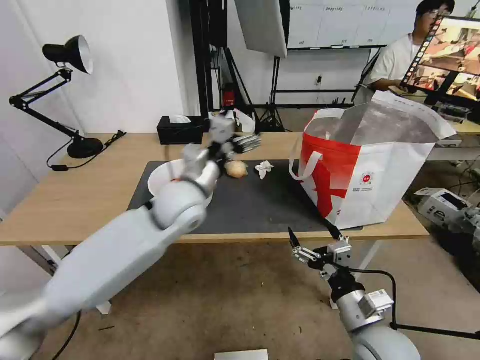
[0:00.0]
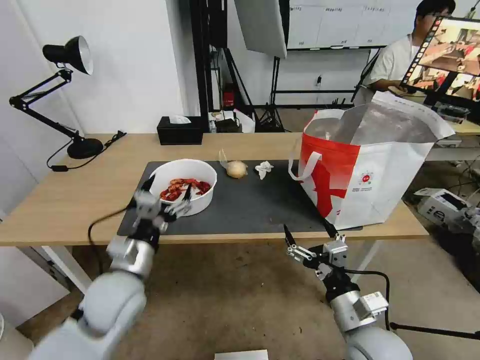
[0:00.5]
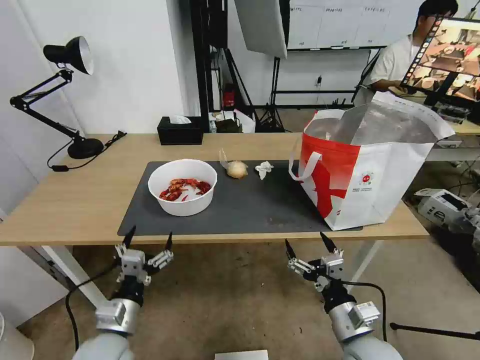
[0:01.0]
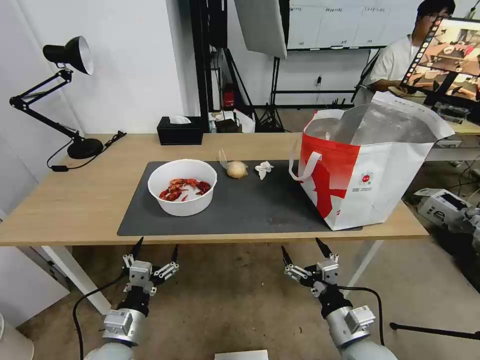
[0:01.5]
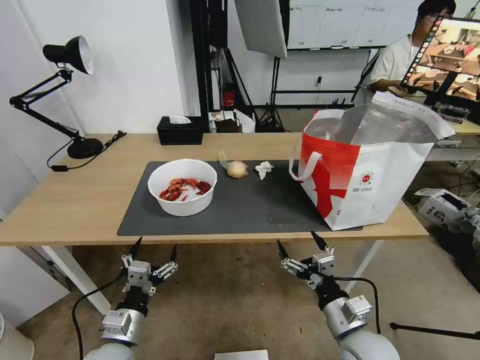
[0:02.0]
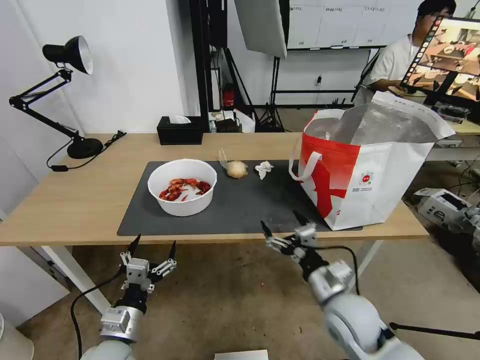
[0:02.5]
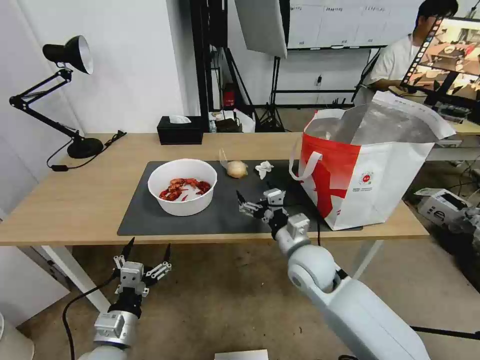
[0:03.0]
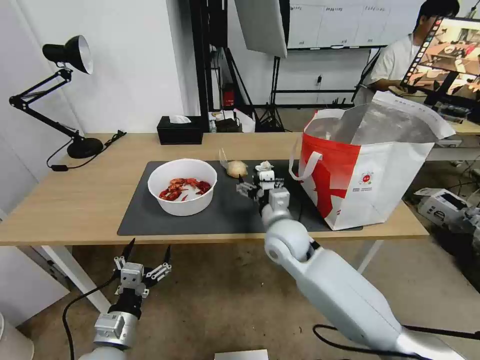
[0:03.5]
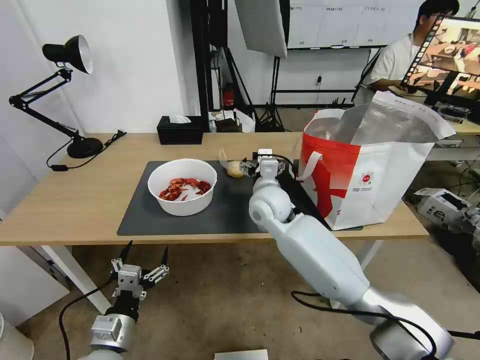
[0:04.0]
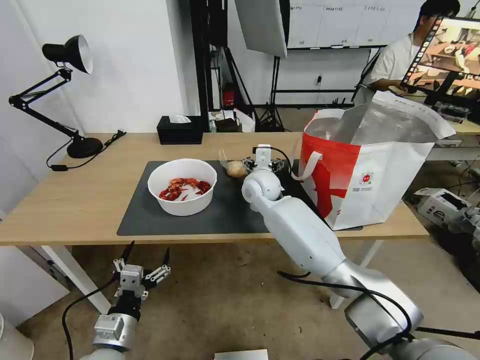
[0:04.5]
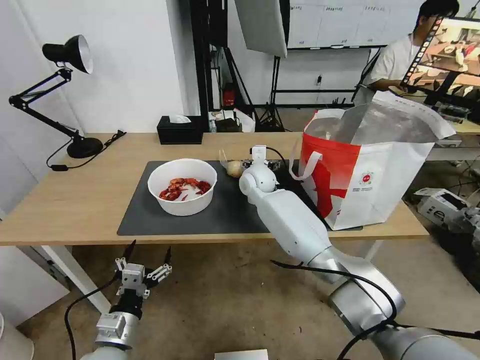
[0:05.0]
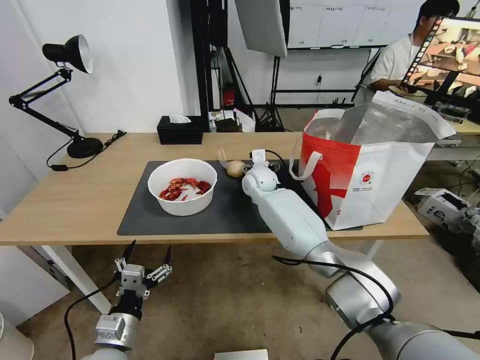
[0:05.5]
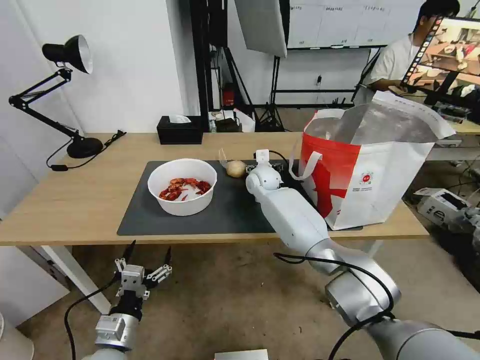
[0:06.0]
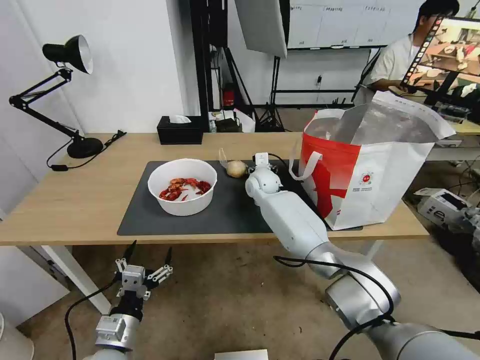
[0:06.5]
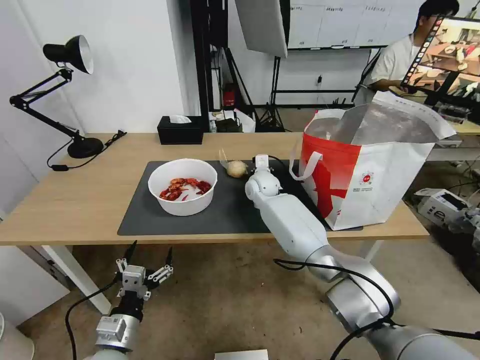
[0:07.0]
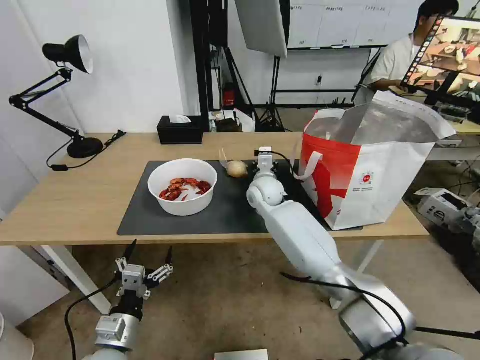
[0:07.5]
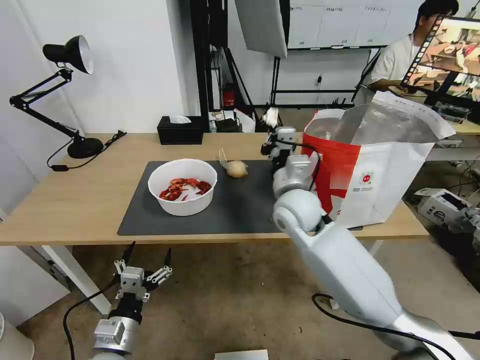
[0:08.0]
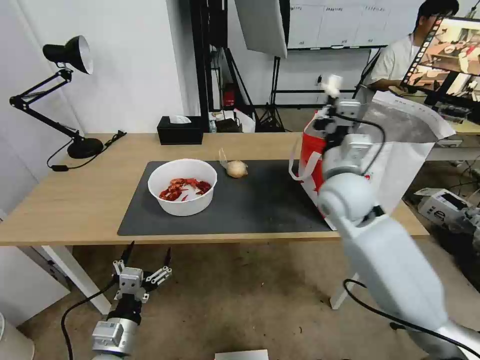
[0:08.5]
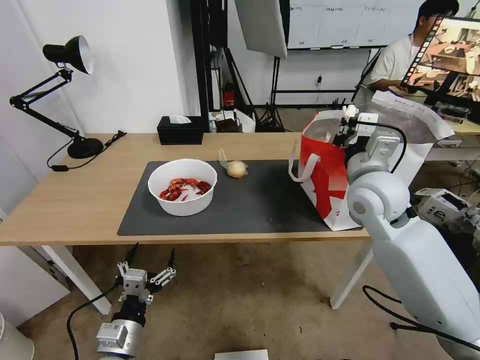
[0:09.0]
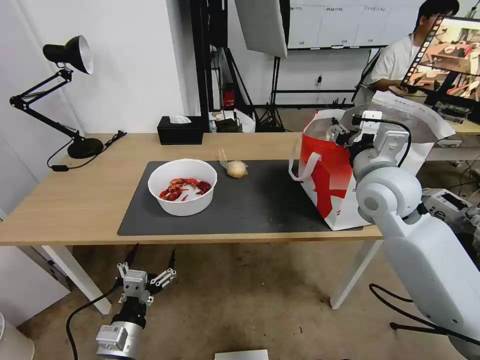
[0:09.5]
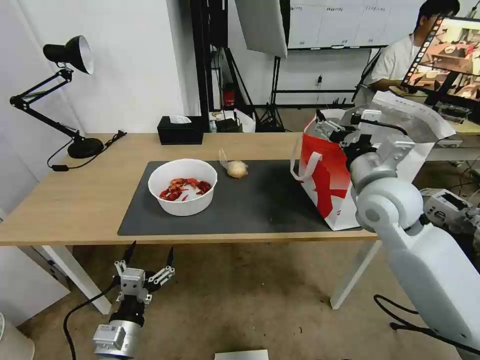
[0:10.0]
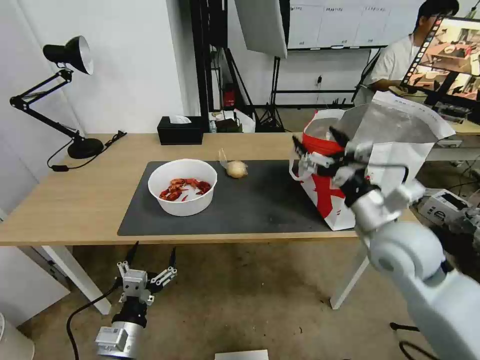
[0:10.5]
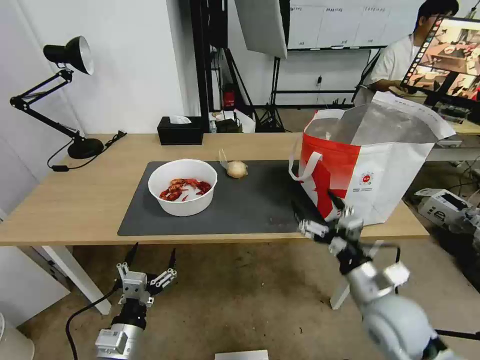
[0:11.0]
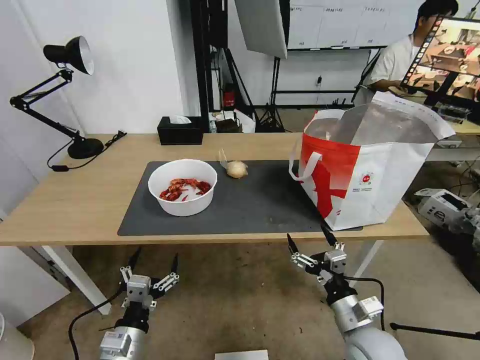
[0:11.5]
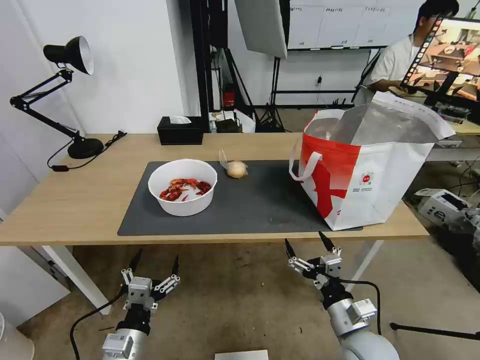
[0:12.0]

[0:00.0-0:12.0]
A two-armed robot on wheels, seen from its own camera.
Task of the whole recording: Pick up the trash from the table and place it into the takeout bag.
0:00.0 to 0:02.0: The left gripper heads backward, downward and to the left, covering approximately 35 cm.
0:02.0 to 0:04.0: The right gripper heads forward, to the left and upward, covering approximately 35 cm.
0:04.0 to 0:06.0: The right gripper shifts roughly 15 cm forward.
0:06.0 to 0:08.0: The right gripper heads backward and upward, covering approximately 20 cm, and closes up.
0:08.0 to 0:10.0: The right gripper moves to the right and upward, some 15 cm, and opens.
0:10.0 to 0:12.0: The right gripper travels downward and backward by some 30 cm.

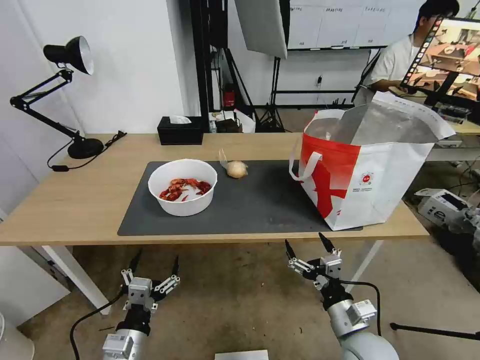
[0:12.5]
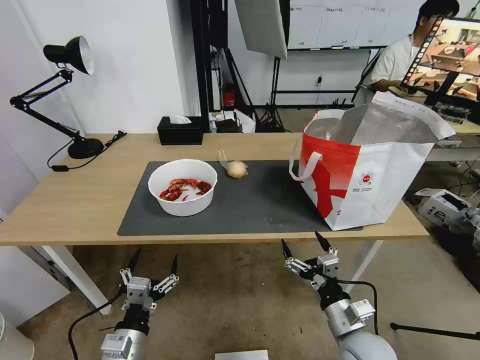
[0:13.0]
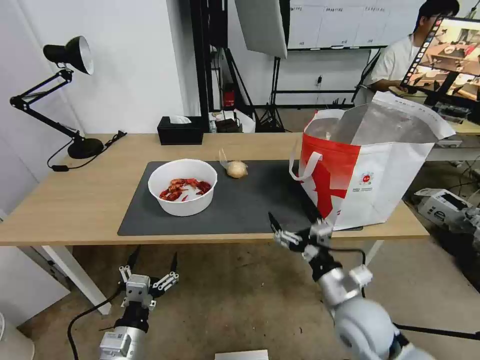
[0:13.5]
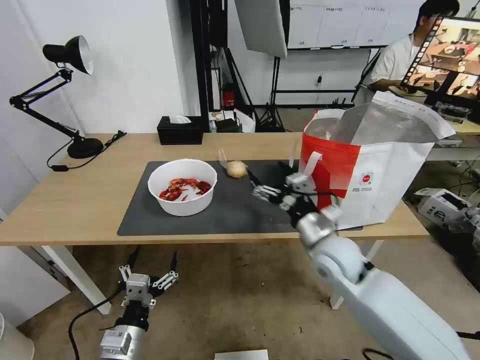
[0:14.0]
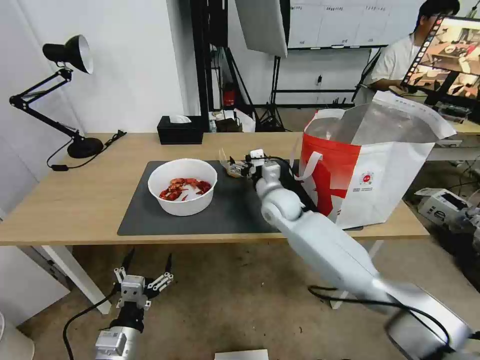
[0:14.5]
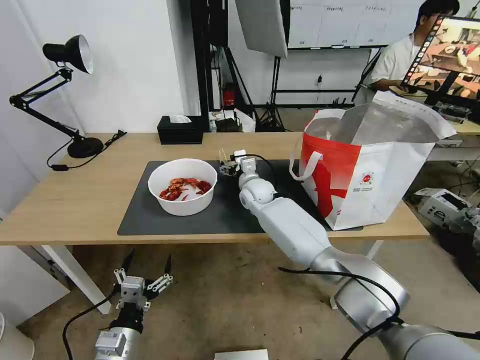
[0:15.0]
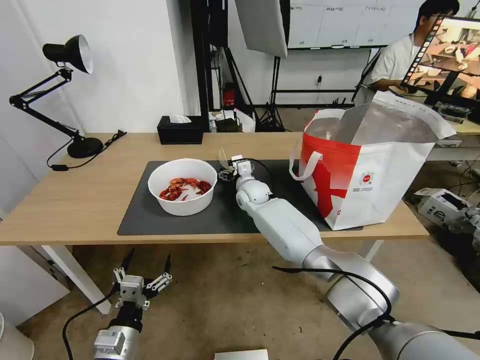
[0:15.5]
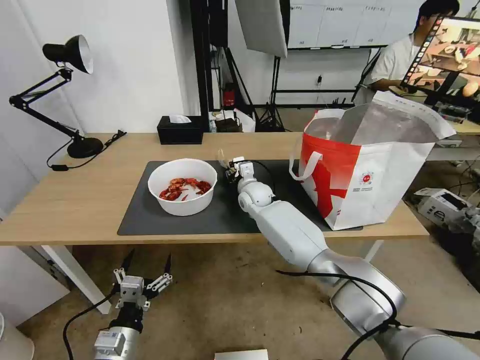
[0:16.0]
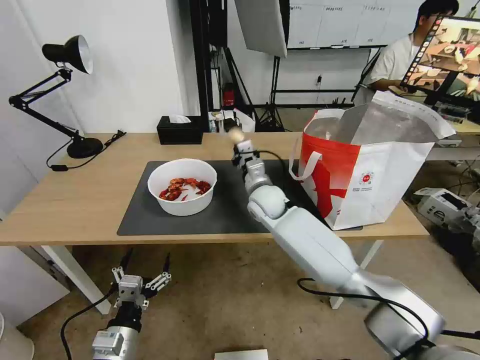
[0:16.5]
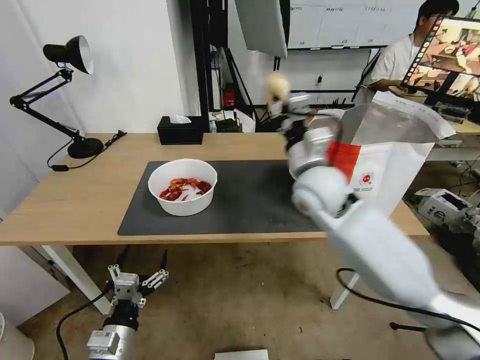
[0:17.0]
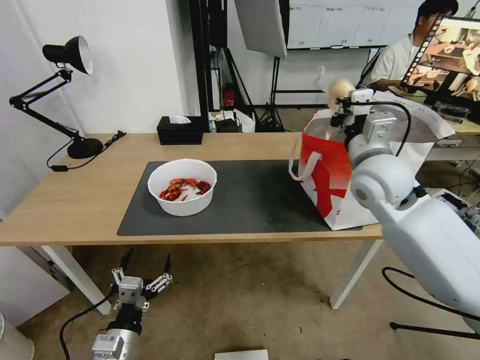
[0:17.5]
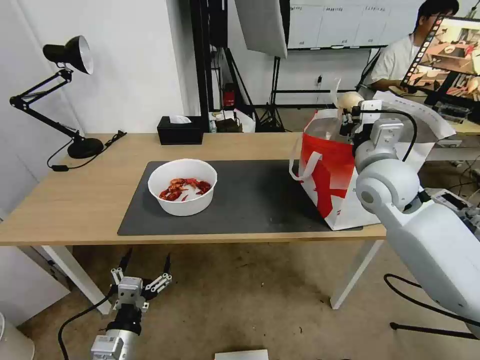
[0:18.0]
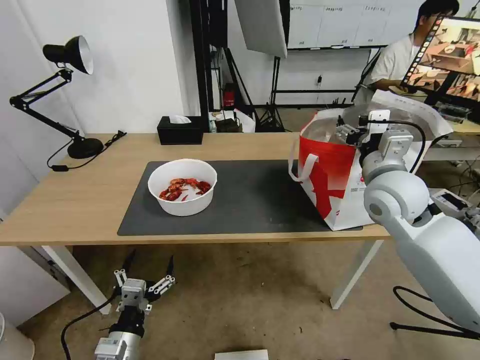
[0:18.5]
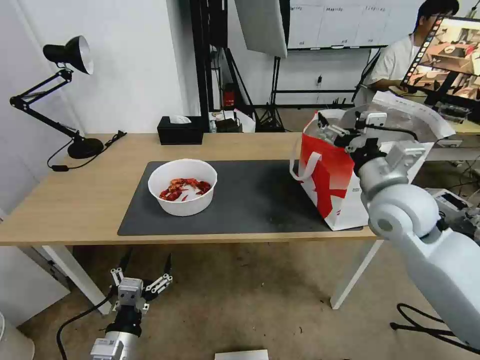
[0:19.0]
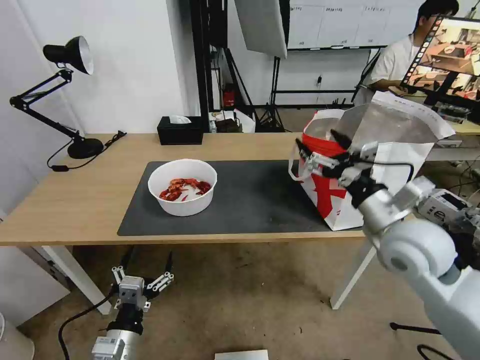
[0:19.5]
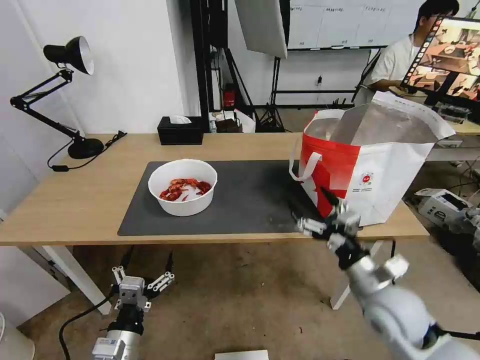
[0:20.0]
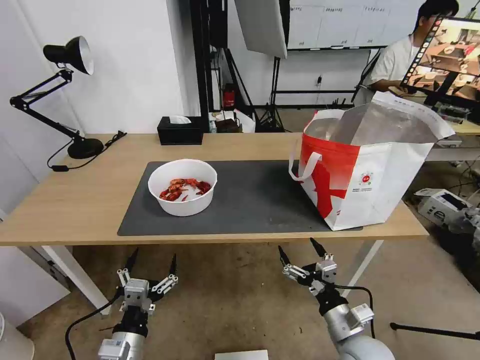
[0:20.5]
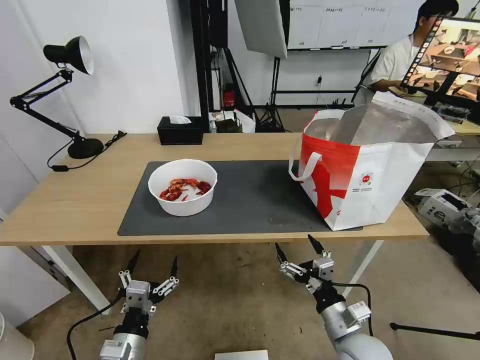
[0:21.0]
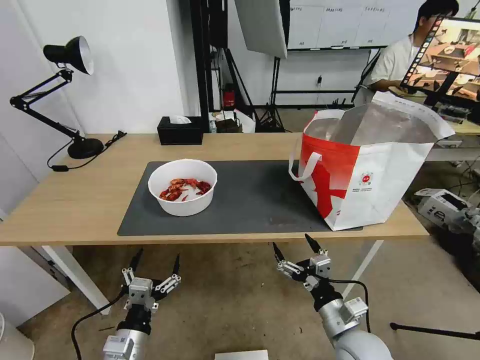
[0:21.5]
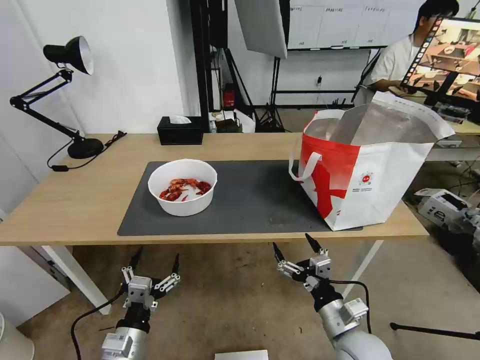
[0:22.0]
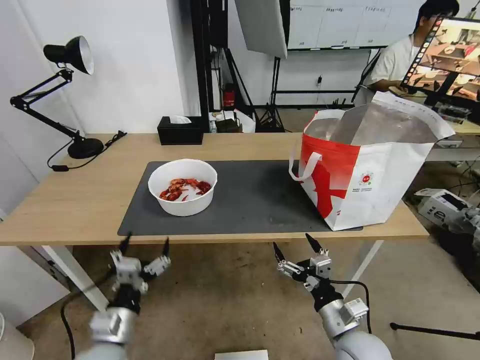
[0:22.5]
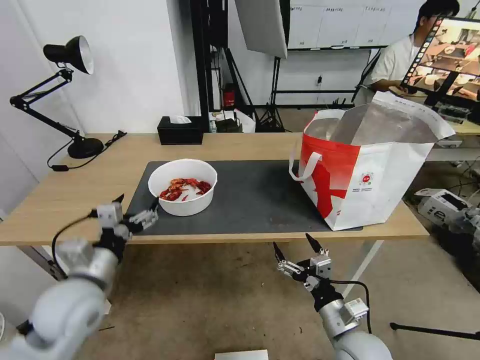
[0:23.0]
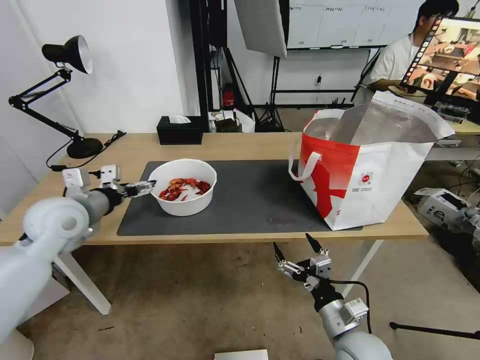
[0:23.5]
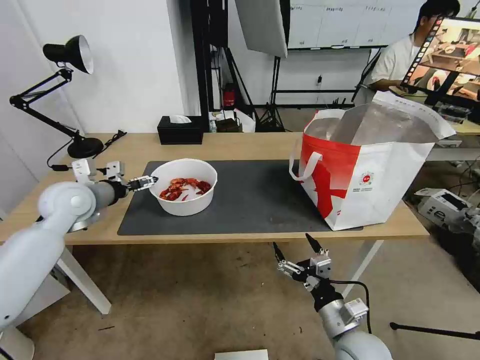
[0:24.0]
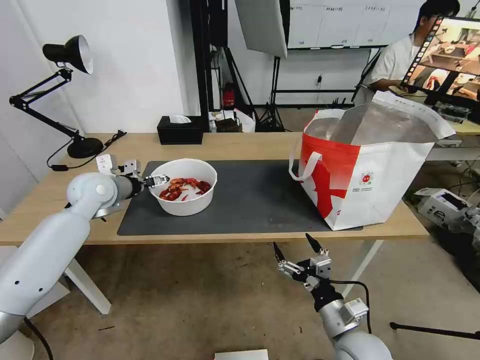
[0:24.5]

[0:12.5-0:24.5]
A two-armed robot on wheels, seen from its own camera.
Task of the whole recording: Pick up the trash from the table and place it into the takeout bag.
0:12.5 to 0:14.5: The right gripper is displaced forward and to the left by some 35 cm.
0:14.5 to 0:16.5: The right gripper reaches about 10 cm forward, then returns, and closes up.
0:16.5 to 0:18.5: The right gripper moves to the right, upward and backward, roughly 30 cm, and opens its fingers.
0:18.5 to 0:20.5: The right gripper goes approximately 35 cm downward and backward.
0:20.5 to 0:22.5: The grippers make only small movements.
0:22.5 to 0:24.5: The left gripper travels forward and upward by roughly 35 cm.

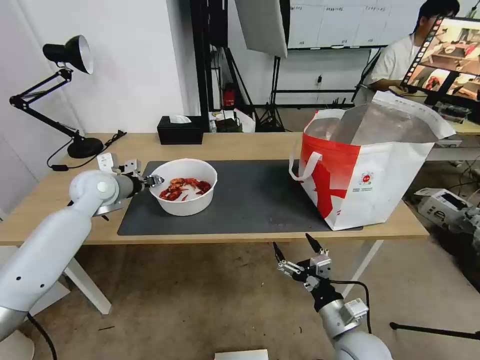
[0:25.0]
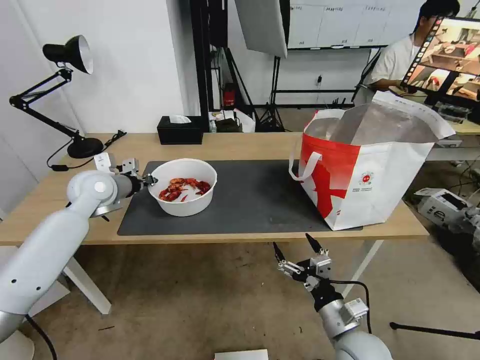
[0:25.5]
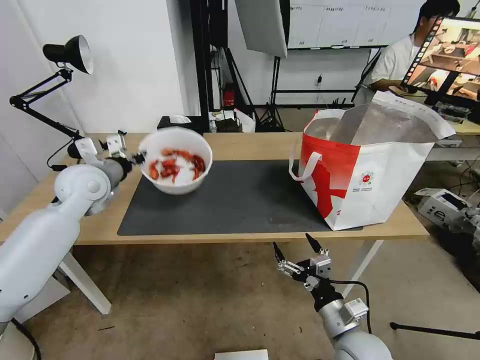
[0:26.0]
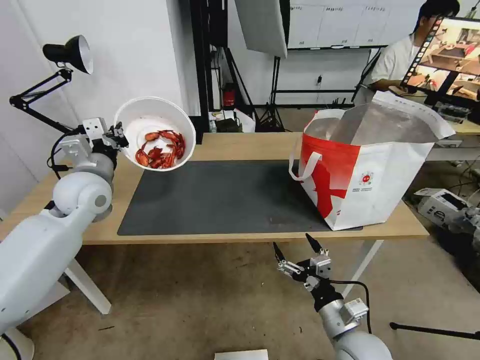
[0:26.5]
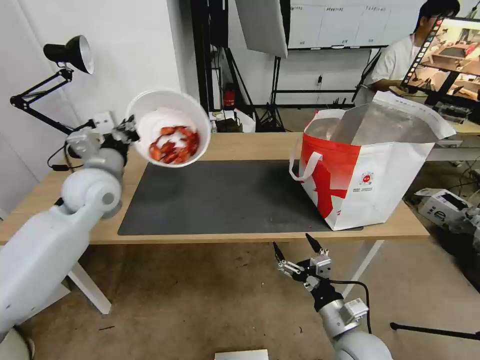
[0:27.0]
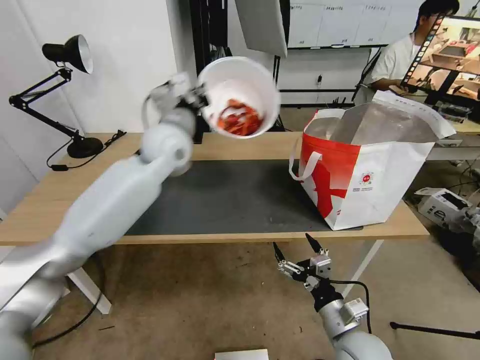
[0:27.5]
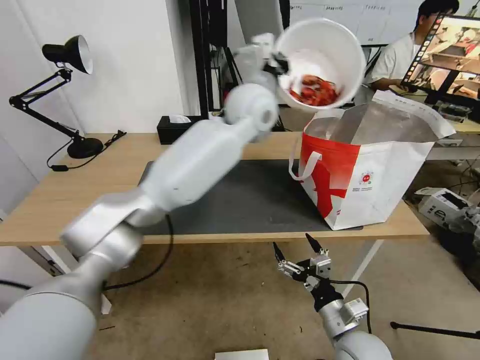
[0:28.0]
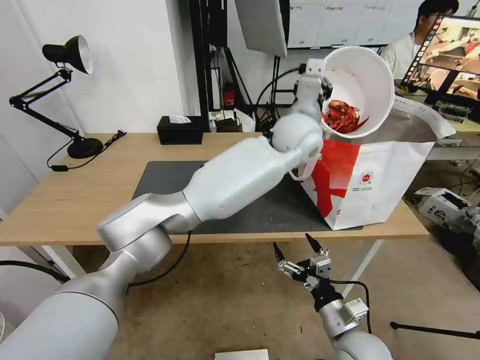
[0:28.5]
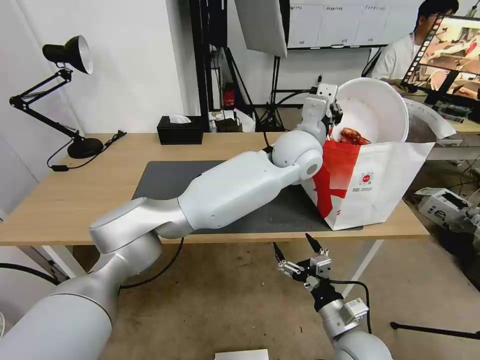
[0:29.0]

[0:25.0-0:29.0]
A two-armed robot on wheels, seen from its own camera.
Task of the whole recording: Pick up the trash from the table and place it into the takeout bag.
0:25.0 to 0:27.0: The left gripper heads backward, covering roughly 5 cm, and closes.
0:27.0 to 0:29.0: The left gripper travels to the right by roughly 40 cm.
